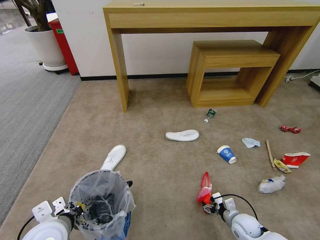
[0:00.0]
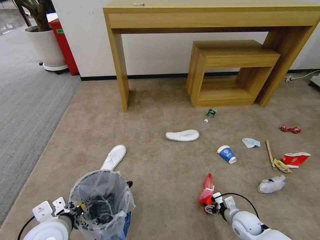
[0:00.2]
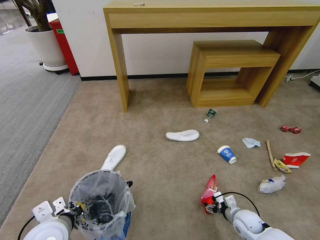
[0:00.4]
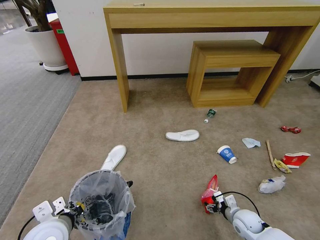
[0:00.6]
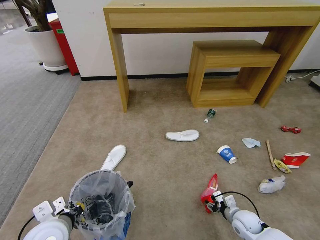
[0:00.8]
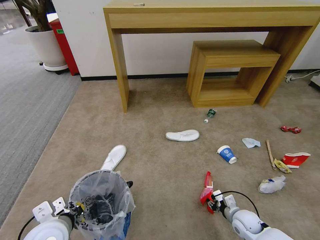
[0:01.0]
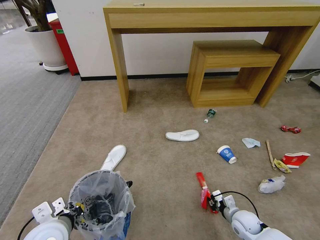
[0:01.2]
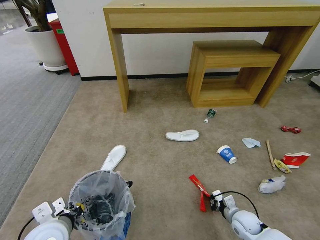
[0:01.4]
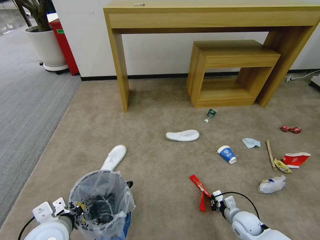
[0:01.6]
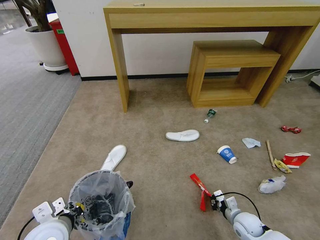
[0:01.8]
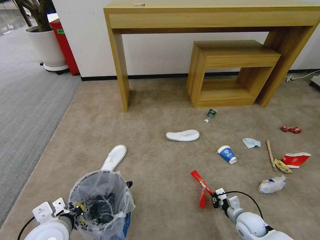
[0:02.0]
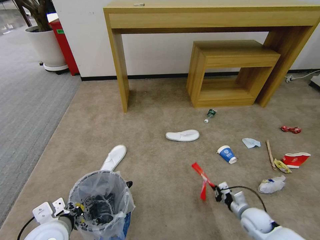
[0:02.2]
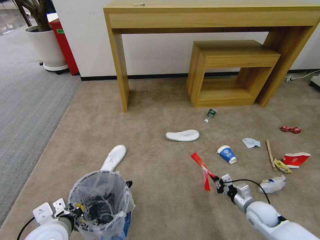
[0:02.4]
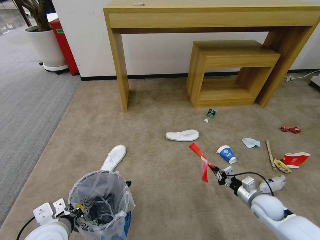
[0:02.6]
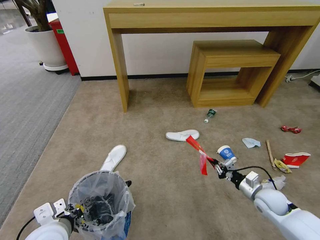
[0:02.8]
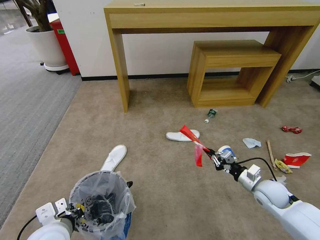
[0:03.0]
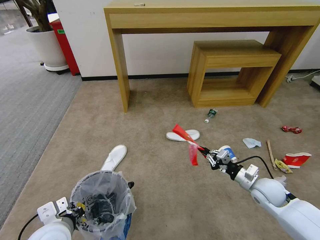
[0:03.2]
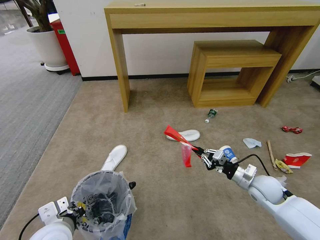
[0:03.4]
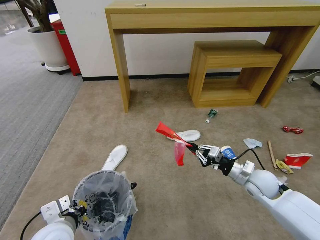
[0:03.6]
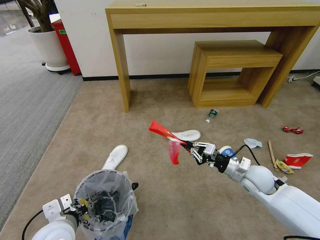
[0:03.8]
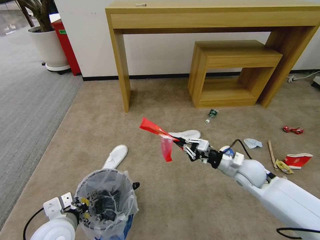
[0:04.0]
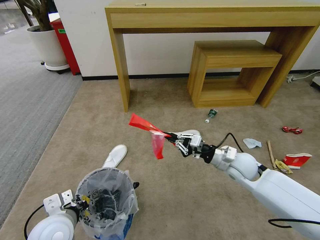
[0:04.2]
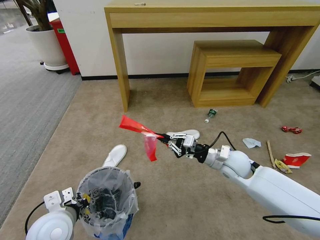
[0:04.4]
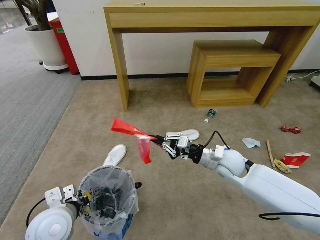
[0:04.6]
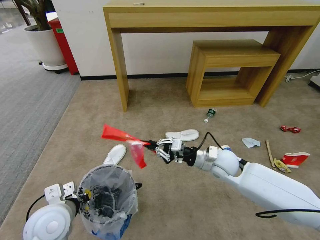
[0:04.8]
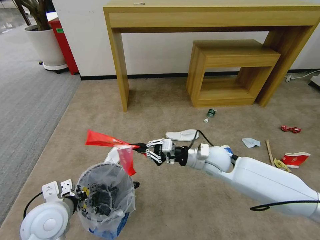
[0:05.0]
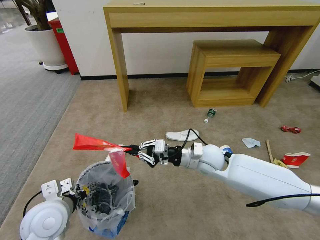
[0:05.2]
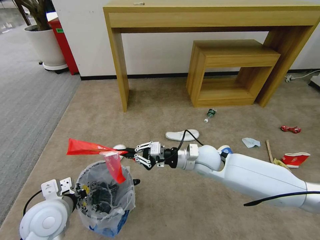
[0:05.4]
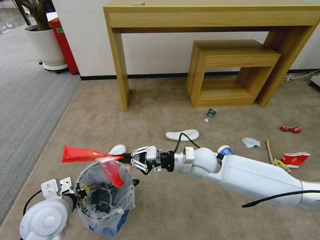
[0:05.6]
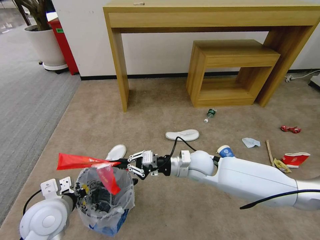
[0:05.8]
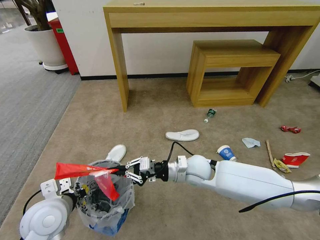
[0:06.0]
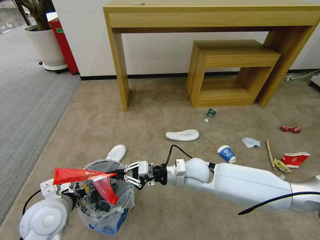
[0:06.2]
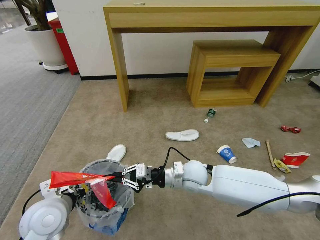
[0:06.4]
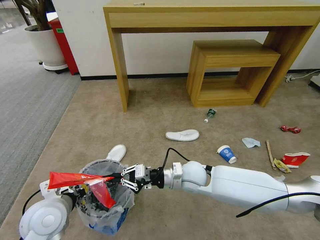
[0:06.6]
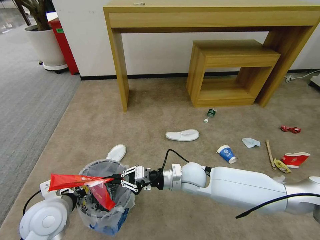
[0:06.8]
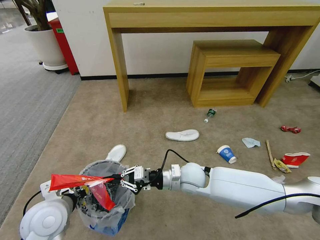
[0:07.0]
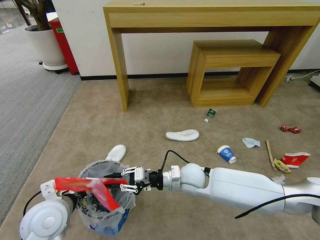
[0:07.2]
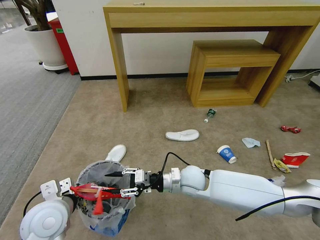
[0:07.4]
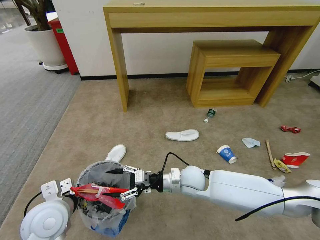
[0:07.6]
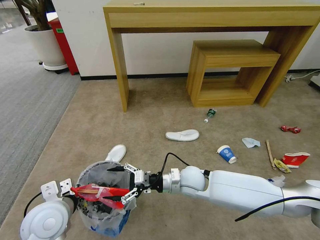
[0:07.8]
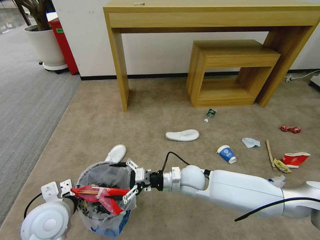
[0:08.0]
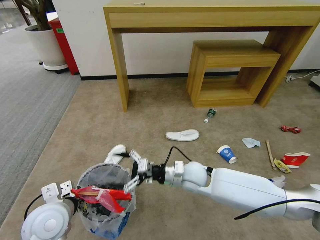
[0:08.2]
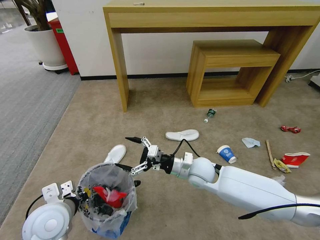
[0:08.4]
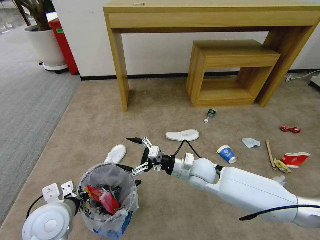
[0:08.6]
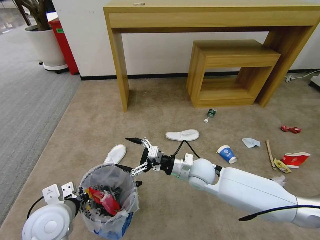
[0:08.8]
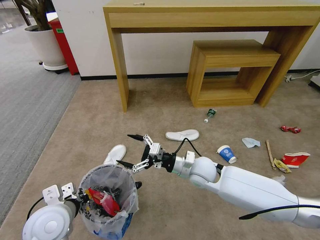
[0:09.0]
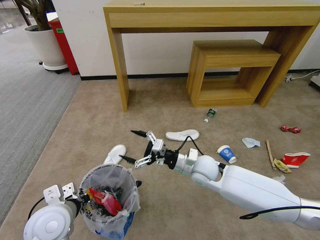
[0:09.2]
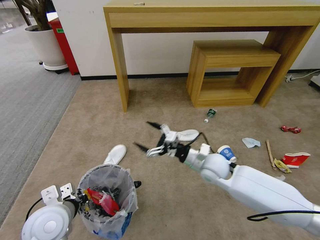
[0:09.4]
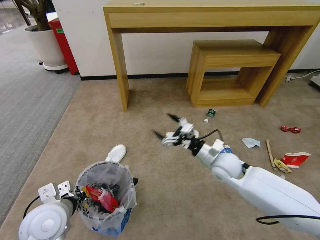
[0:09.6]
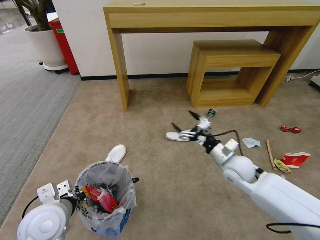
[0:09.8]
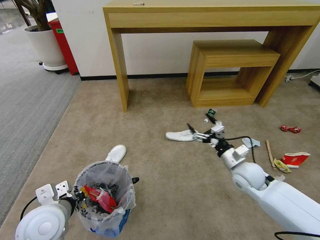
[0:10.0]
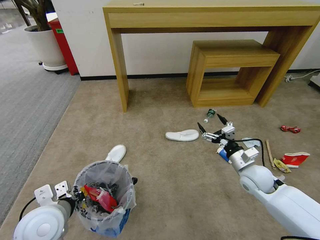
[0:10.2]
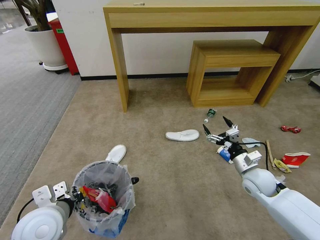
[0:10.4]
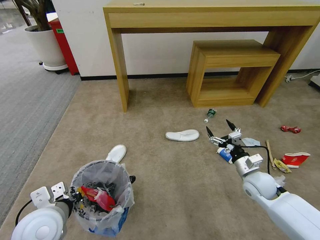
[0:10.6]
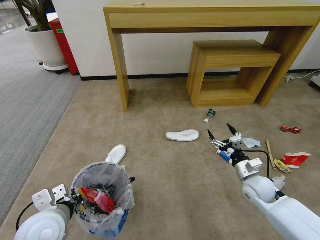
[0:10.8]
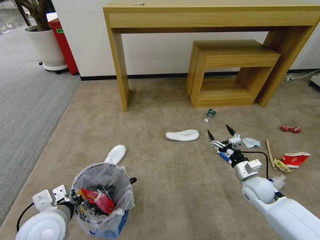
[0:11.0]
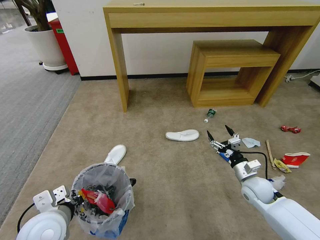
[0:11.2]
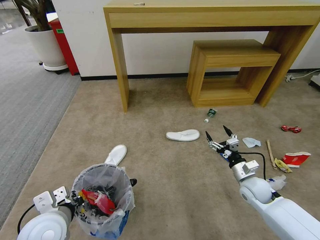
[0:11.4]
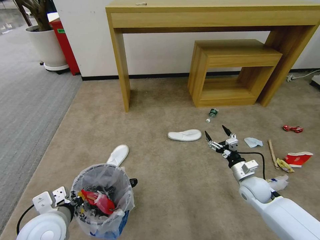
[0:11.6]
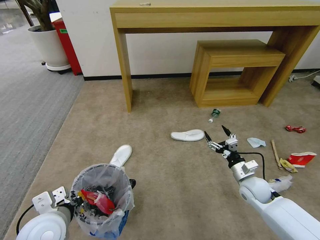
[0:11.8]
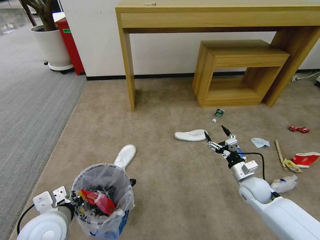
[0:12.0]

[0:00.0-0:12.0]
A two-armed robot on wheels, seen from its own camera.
Task of the whole recording: Pick up the trash bin and place the garbage on the floor into it.
0:00.0 to 0:01.6: The right gripper closes its fingers.
0:01.6 to 0:03.0: The right gripper shifts some 15 cm upward, forward and to the right.
0:03.0 to 0:04.4: The right gripper travels to the left, upward and forward by roughly 15 cm.
0:04.4 to 0:06.0: The right gripper shifts approximately 15 cm to the left.
0:06.0 to 0:07.6: The right gripper opens its fingers.
0:07.6 to 0:09.0: The right gripper opens.
0:09.0 to 0:10.4: The right gripper is displaced to the right by approximately 20 cm.
0:10.4 to 0:12.0: The right gripper goes roughly 5 cm downward.

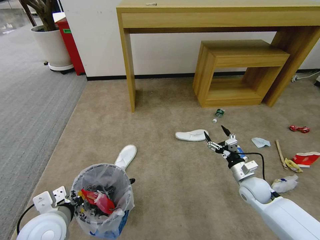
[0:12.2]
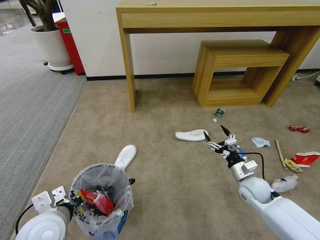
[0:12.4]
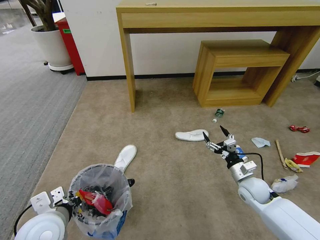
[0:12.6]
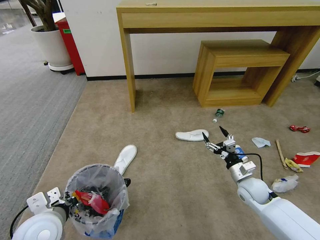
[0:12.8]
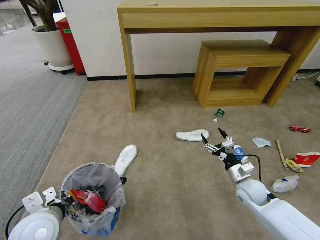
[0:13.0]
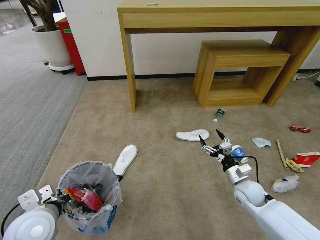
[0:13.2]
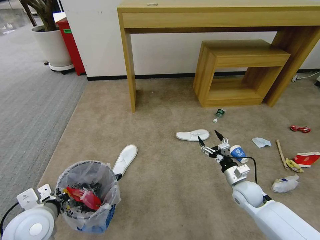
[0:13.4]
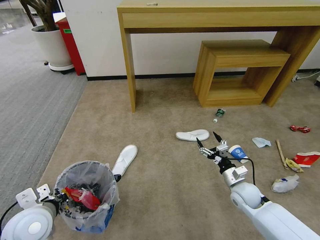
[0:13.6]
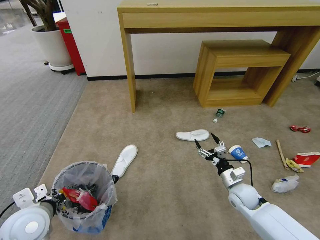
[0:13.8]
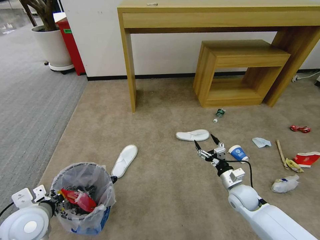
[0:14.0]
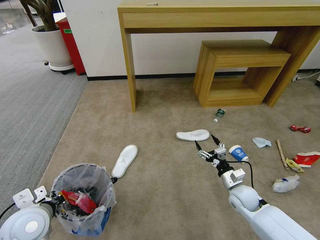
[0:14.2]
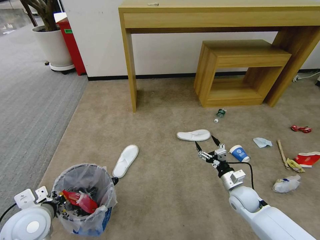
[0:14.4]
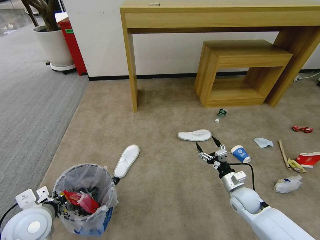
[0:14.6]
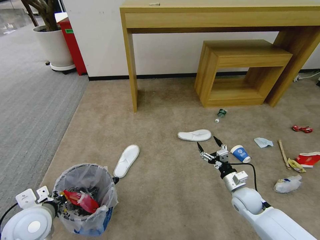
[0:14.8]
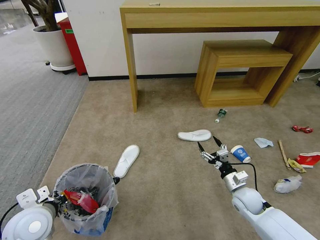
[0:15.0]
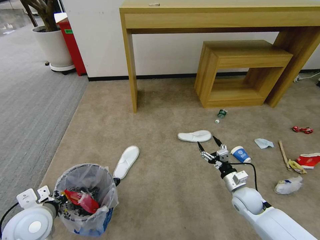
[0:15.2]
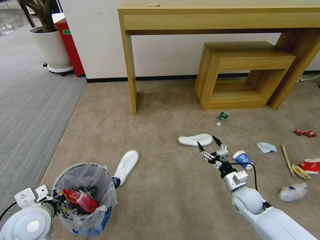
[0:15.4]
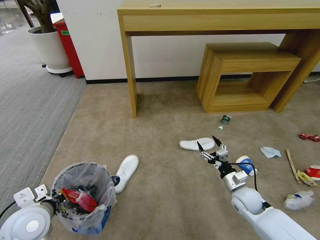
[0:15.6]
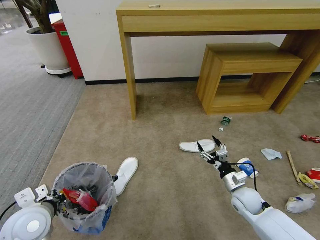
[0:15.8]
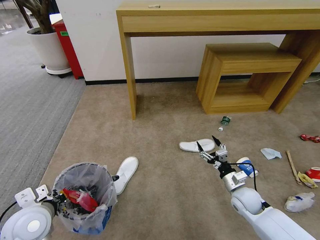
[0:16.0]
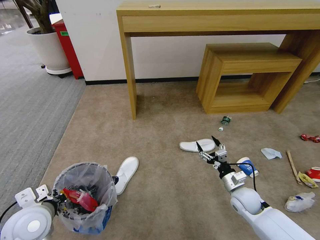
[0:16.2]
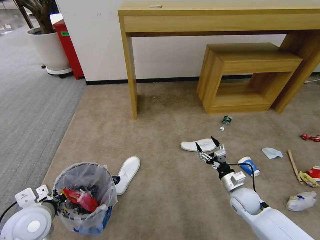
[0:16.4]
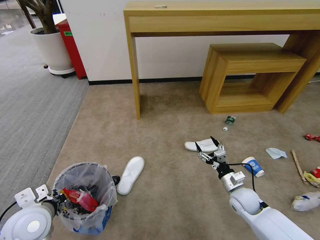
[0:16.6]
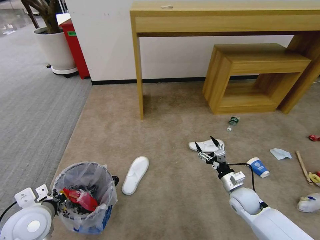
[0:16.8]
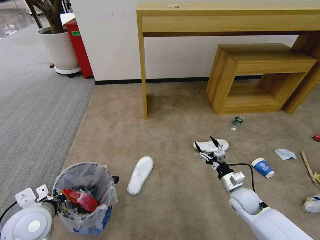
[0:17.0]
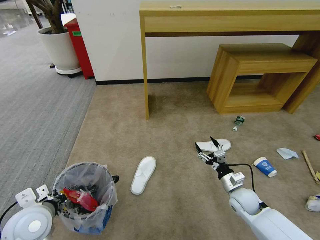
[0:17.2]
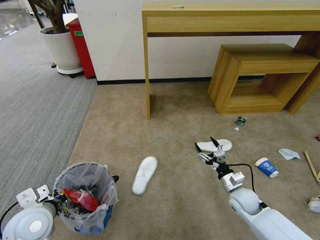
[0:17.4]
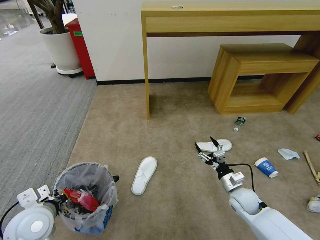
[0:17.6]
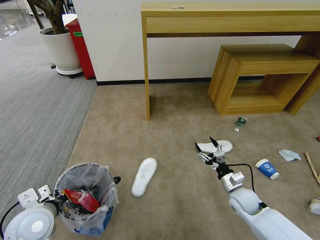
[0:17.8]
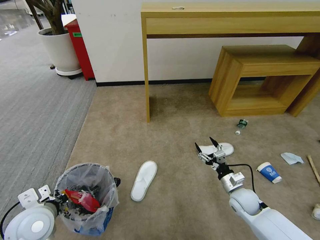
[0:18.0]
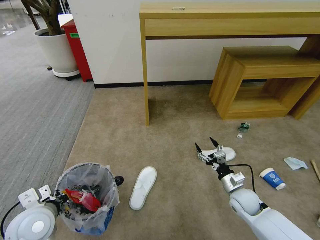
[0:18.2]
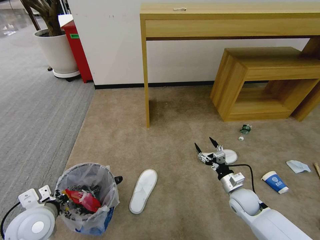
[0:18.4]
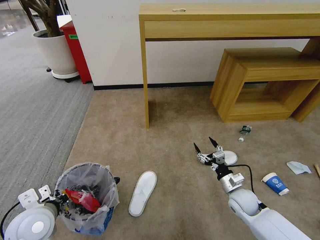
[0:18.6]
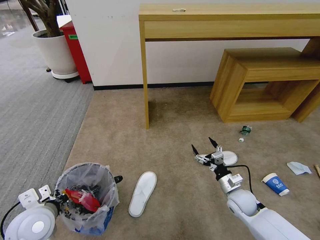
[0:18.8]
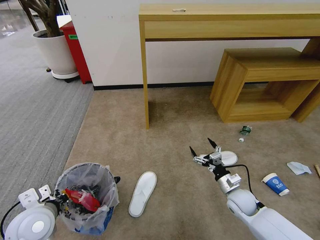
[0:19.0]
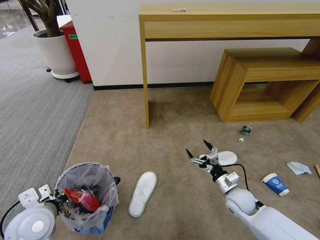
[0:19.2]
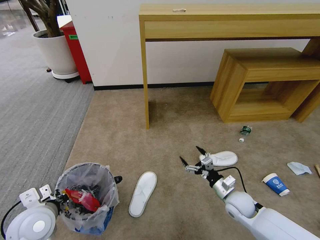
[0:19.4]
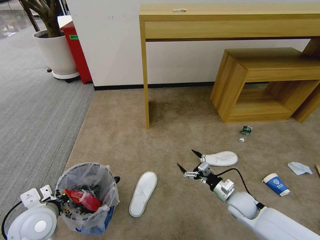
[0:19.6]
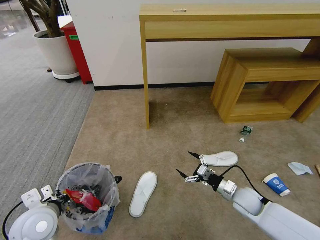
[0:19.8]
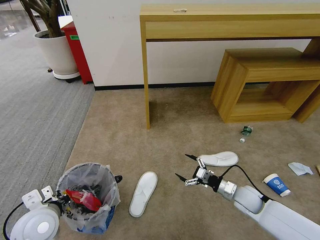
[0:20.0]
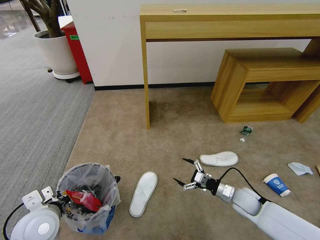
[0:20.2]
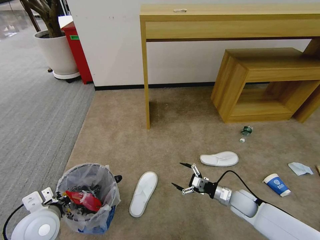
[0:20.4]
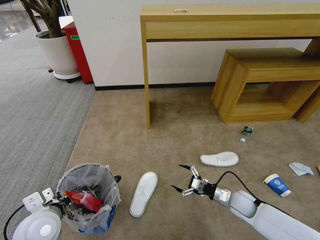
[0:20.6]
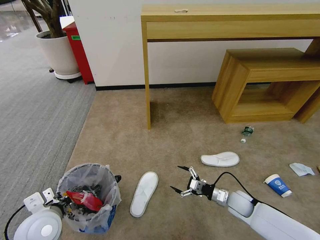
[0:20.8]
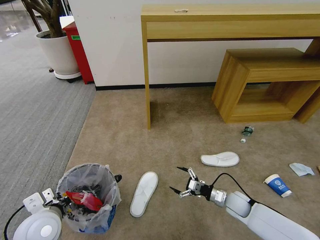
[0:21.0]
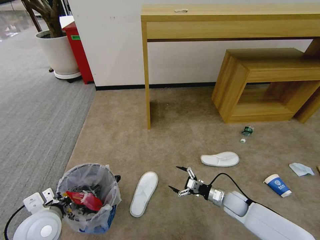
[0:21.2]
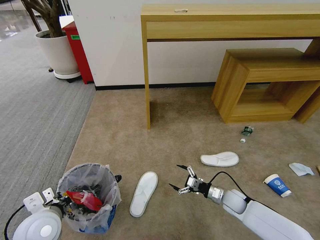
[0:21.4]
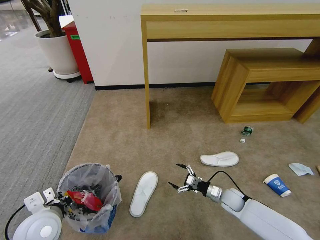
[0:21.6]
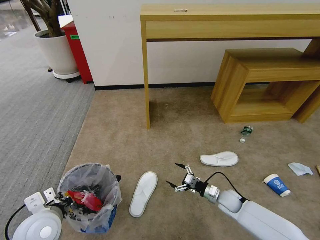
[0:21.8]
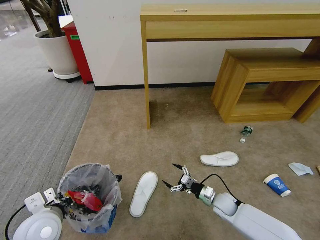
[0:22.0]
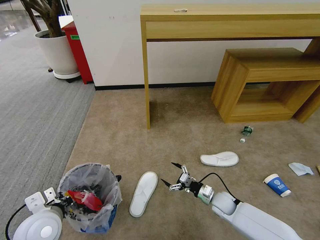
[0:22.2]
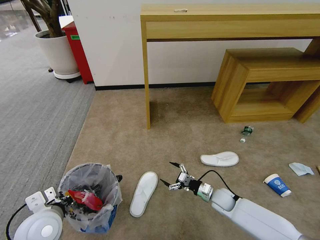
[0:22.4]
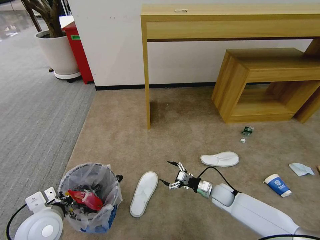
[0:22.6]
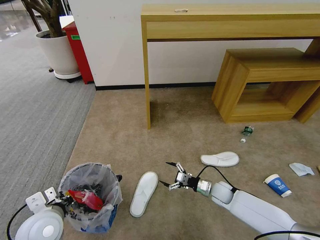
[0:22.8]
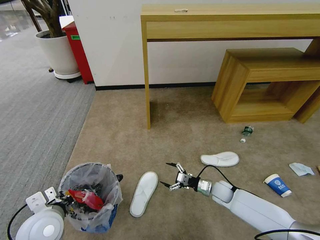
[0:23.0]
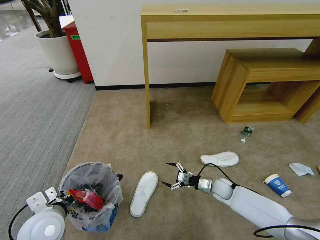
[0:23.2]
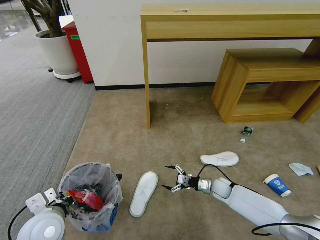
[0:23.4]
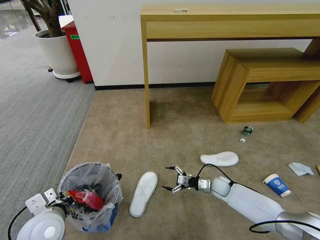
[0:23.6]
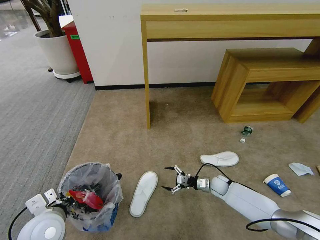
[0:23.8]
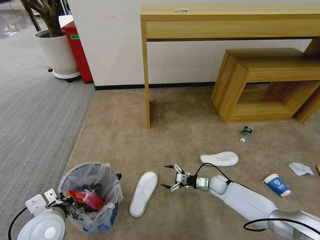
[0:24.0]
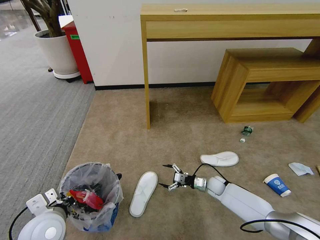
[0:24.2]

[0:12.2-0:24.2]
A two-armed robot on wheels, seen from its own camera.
Task of the whole recording: Pick up the trash bin and place the garbage on the floor into it.
0:12.2 to 0:13.8: The left gripper heads to the left, covering approximately 5 cm.
0:13.8 to 0:15.2: There are only small adjustments of the grippers.
0:19.8 to 0:21.2: The right gripper heads downward, covering some 5 cm.
0:21.2 to 0:22.6: The right gripper shifts by some 5 cm.
0:22.6 to 0:24.2: The right gripper is displaced forward by approximately 5 cm.
